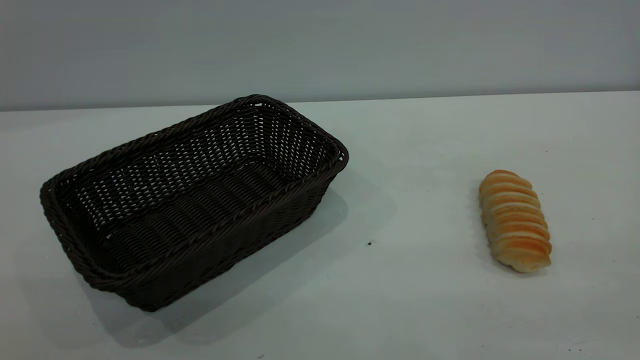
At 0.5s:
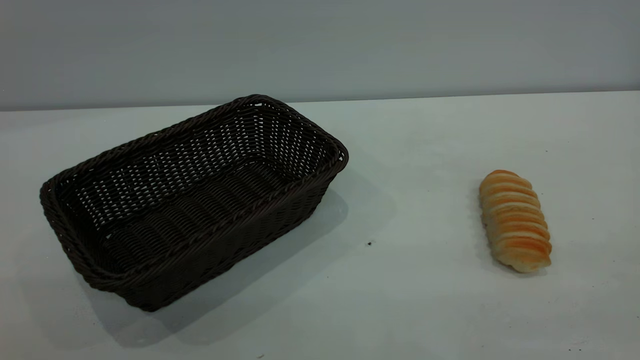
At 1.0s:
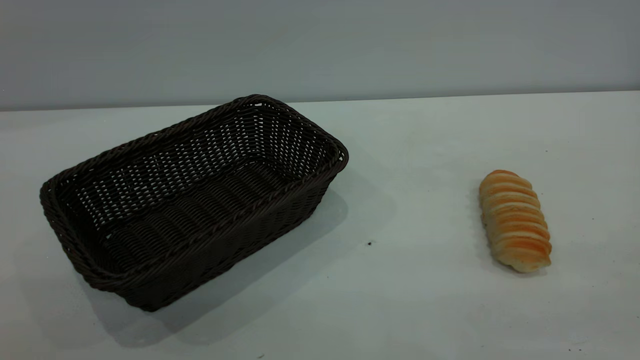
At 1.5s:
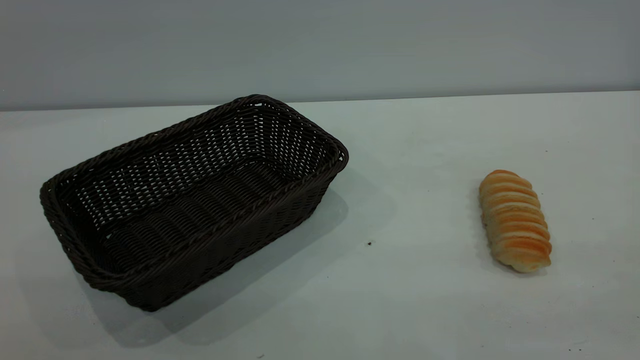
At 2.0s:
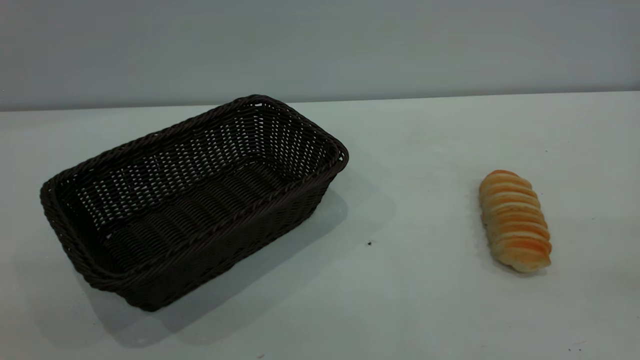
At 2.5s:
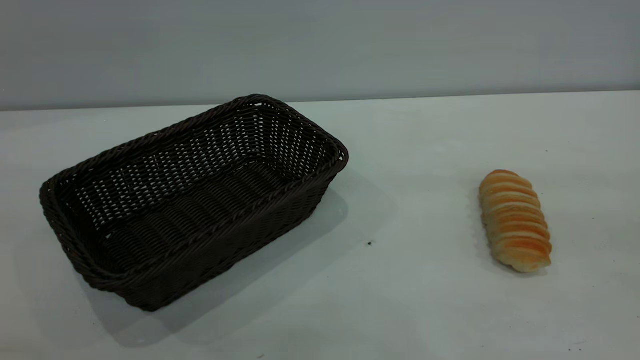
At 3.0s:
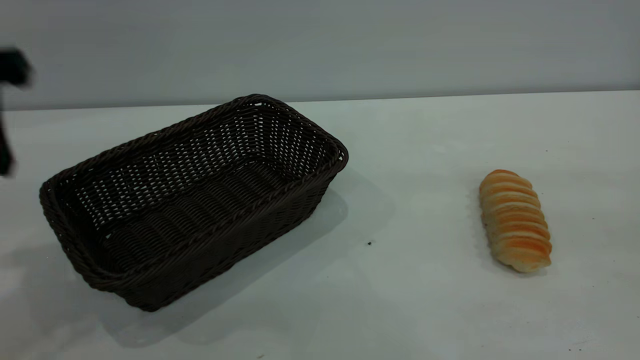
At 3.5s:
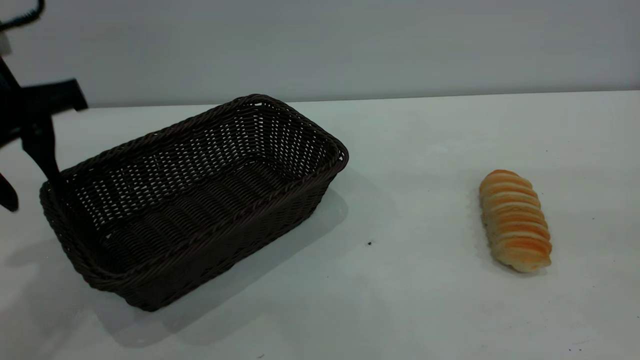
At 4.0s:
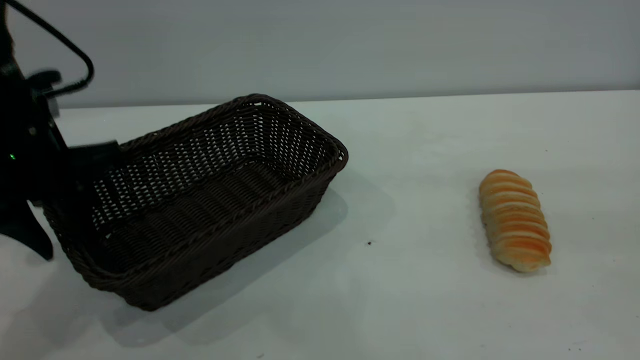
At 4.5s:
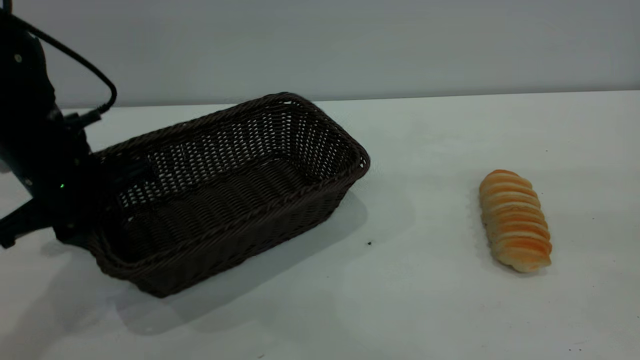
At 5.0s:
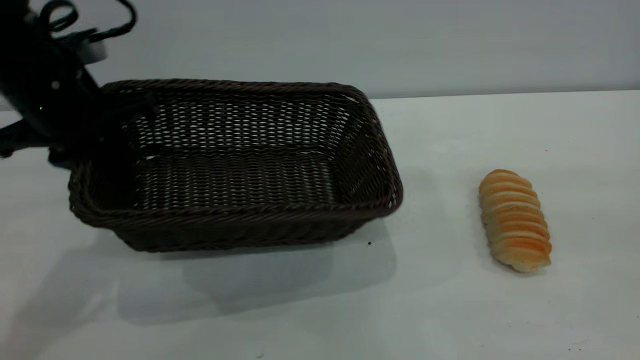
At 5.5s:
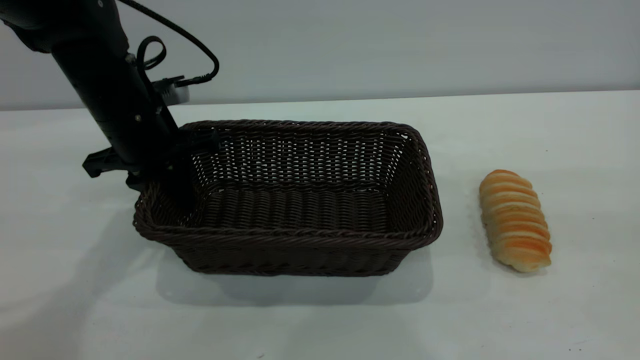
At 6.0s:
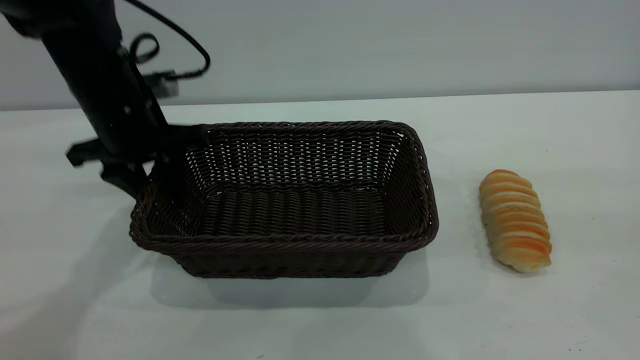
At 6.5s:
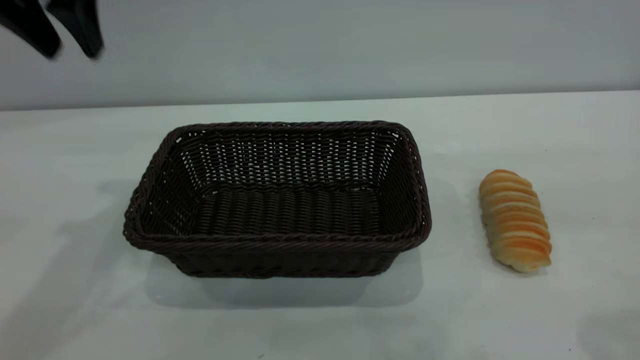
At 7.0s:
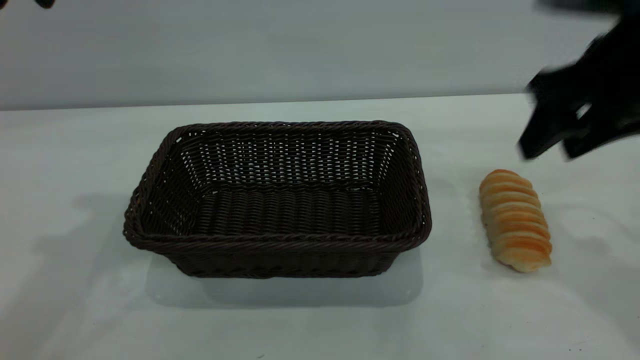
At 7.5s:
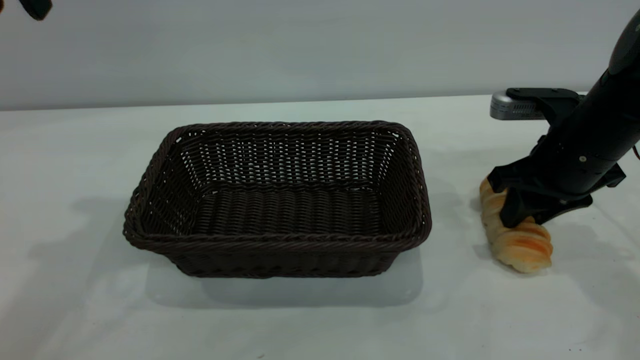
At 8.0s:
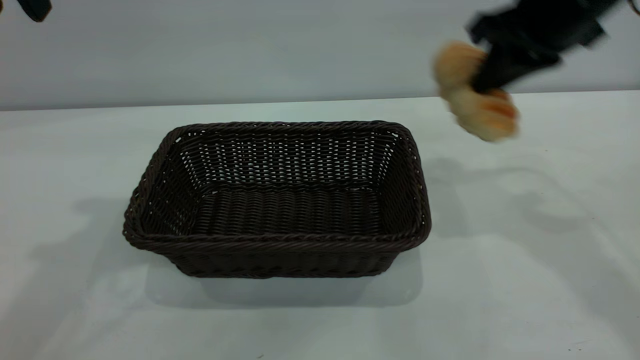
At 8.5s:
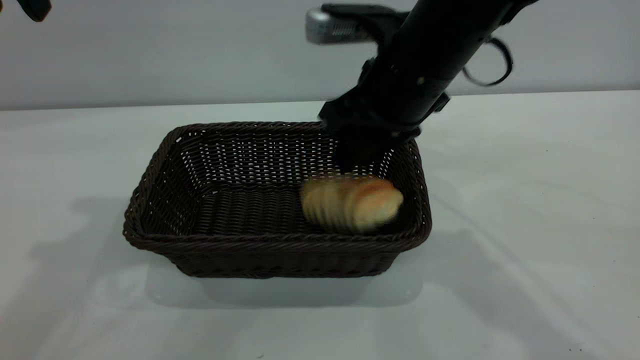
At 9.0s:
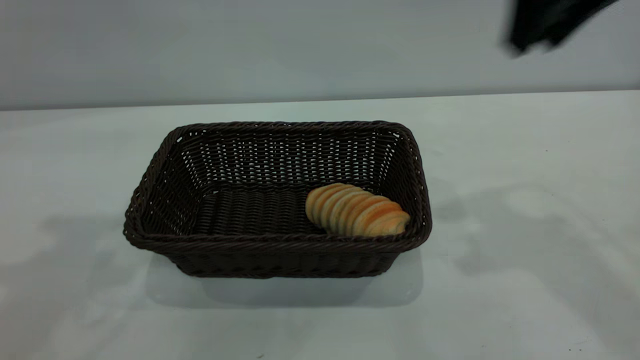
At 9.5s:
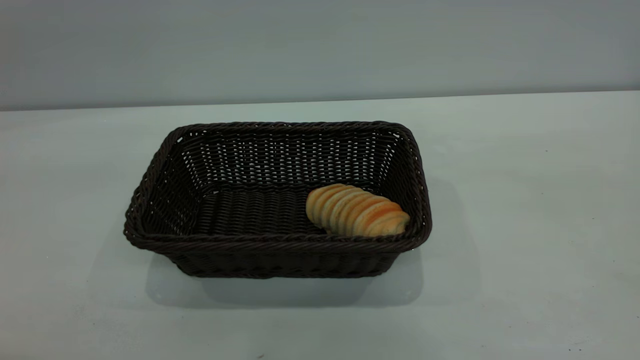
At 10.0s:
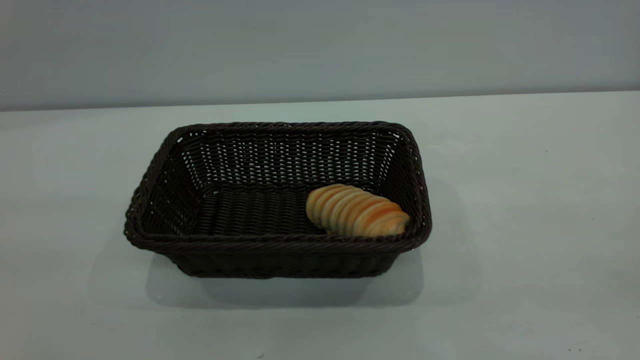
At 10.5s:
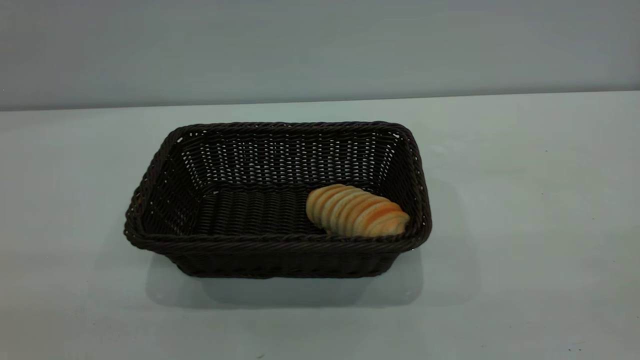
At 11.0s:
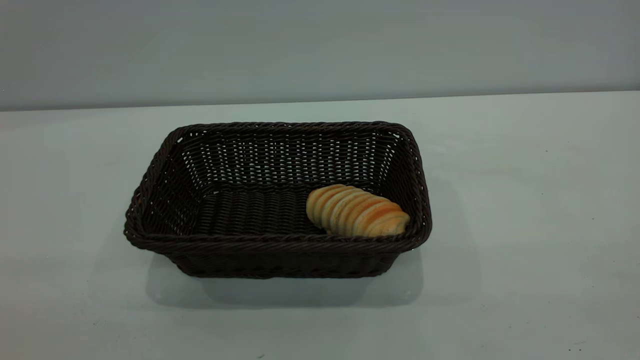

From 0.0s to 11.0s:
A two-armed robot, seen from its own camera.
Task of the whole recording: One hand grasps the black basket and places it in the middle of the table, while the other hand picks up the long bread and puts it into the black basket.
Step, from 0.0s to 6.0s: Move the basket to the center of view.
Step, from 8.0s to 8.5s: place the bread into the basket.
From 2.0s to 3.5s: The left gripper heads forward and downward, covering roughly 35 cm.
From 3.5s to 5.5s: The left gripper travels forward, downward and to the right by about 15 cm, and closes up.
From 5.5s to 7.5s: The left gripper heads upward, covering roughly 25 cm, and opens; the right gripper goes some 35 cm forward and downward, and closes up.
From 7.5s to 9.0s: The right gripper swings up and down, some 25 cm each way, with 2 reversals, and closes, then reopens. Meanwhile the left gripper goes about 5 cm upward.
From 9.0s to 11.0s: The right gripper goes about 30 cm backward.

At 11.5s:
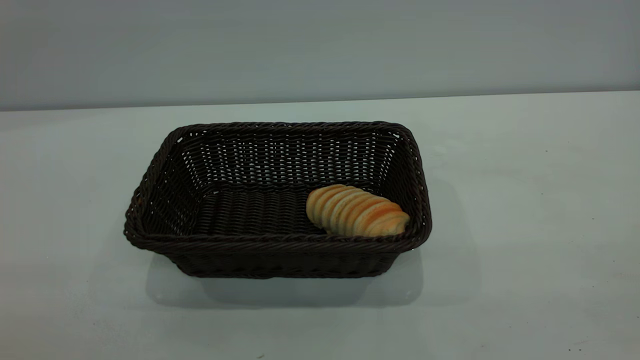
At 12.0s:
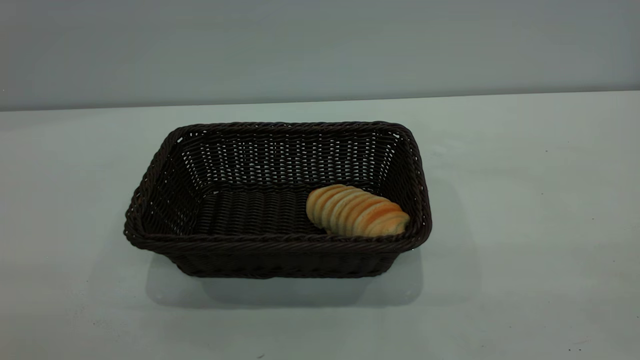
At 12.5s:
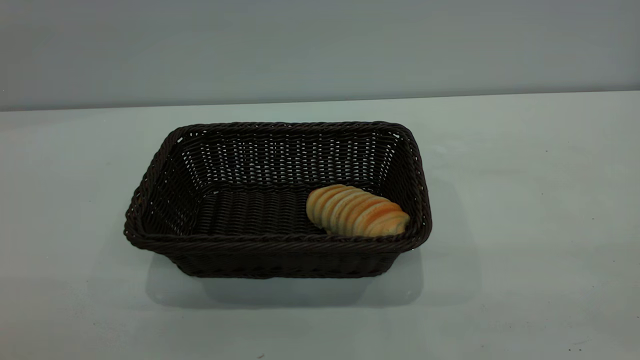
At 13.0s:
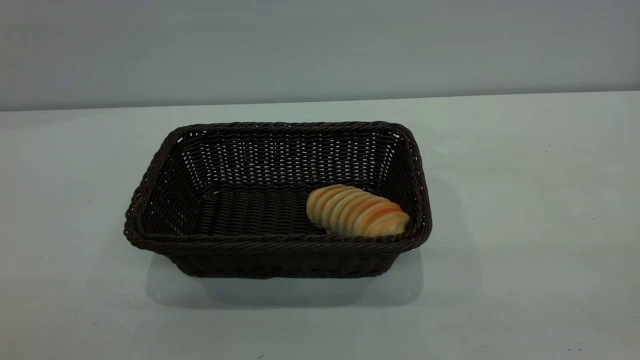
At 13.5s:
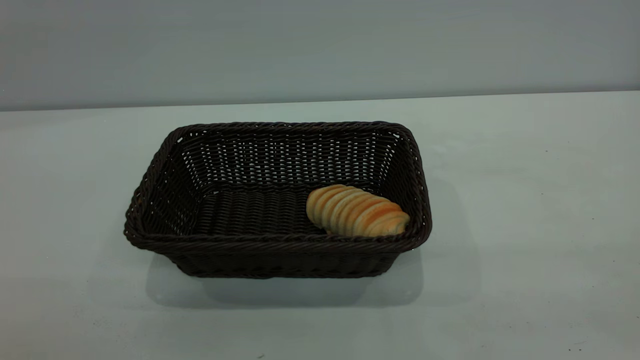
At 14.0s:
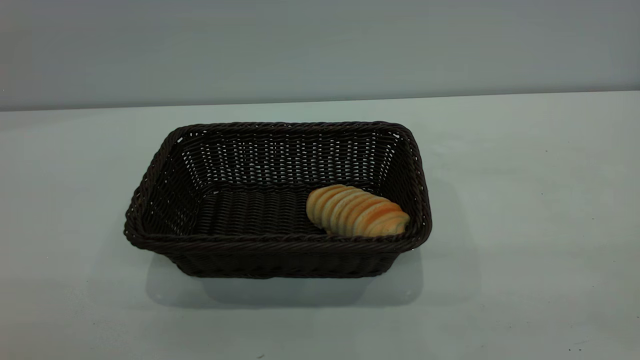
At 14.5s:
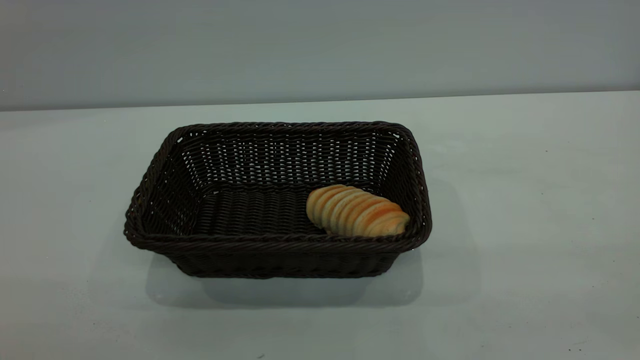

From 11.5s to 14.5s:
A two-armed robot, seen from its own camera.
Task of the whole recording: One hand grasps the black basket and places it in the middle of the table, while the other hand picks up the long bread and puts it into the black basket.
From 13.0s to 14.5s: Both grippers stay about where they are.

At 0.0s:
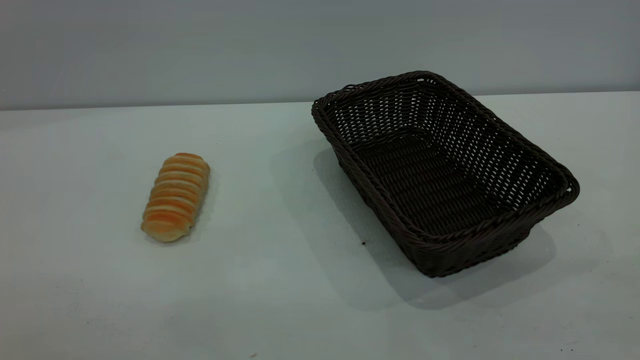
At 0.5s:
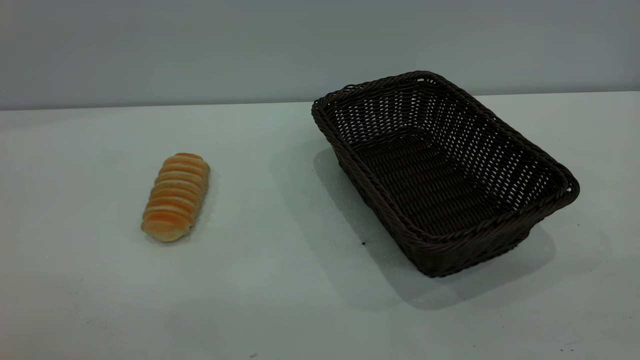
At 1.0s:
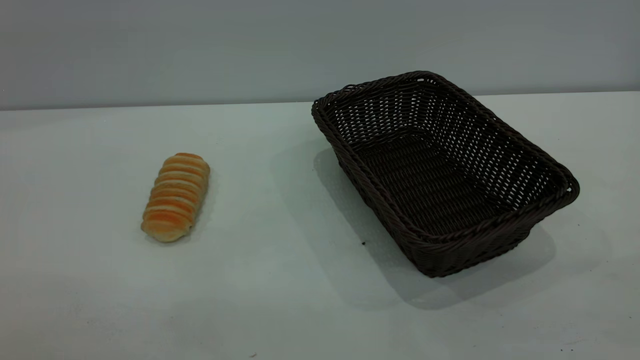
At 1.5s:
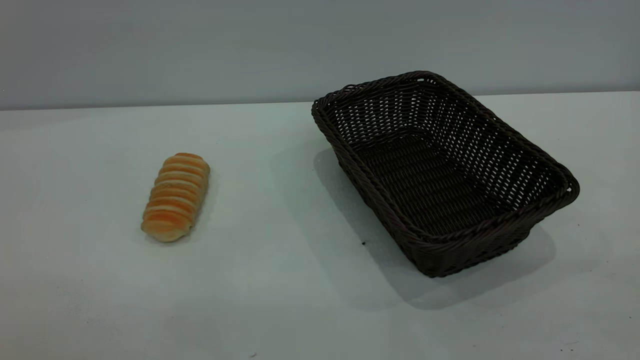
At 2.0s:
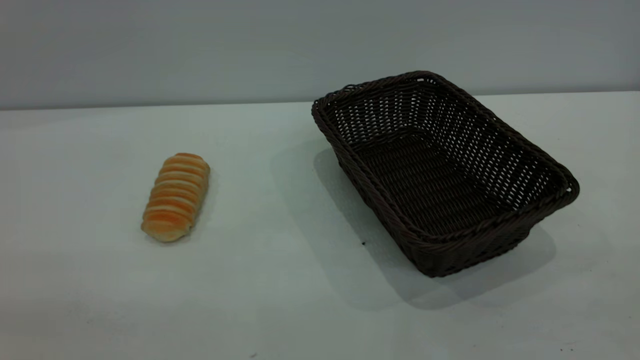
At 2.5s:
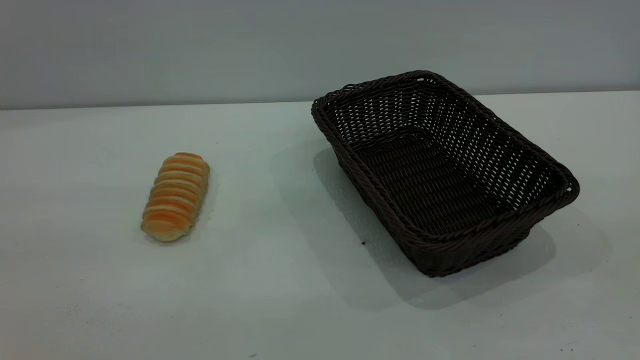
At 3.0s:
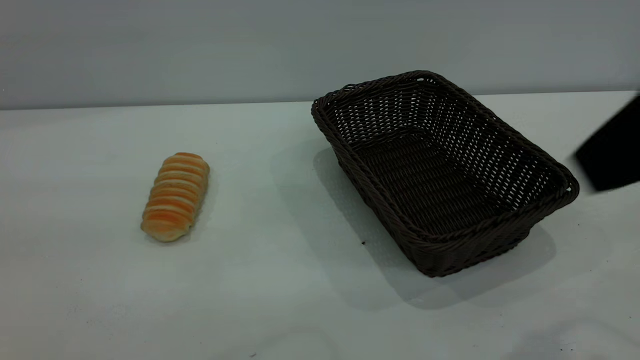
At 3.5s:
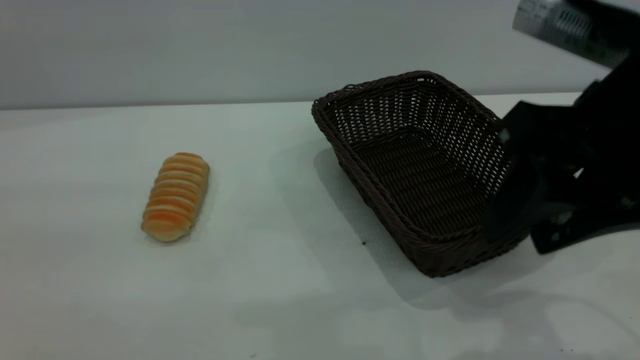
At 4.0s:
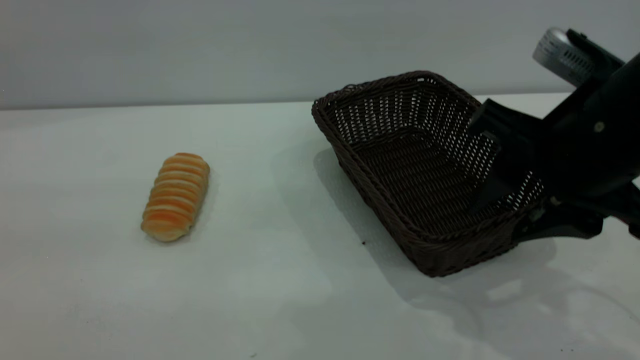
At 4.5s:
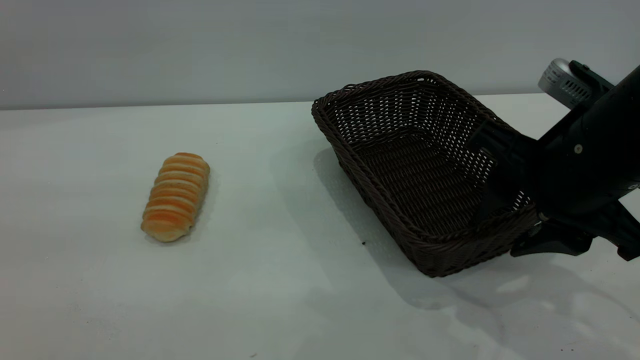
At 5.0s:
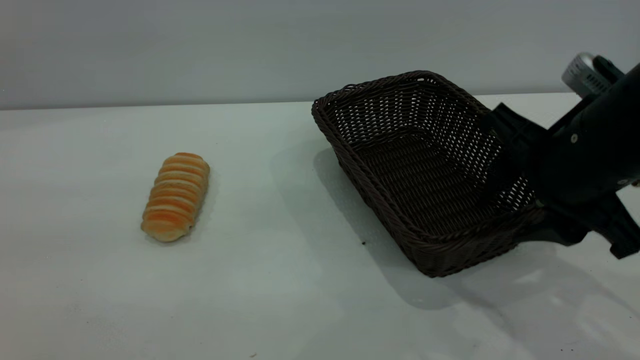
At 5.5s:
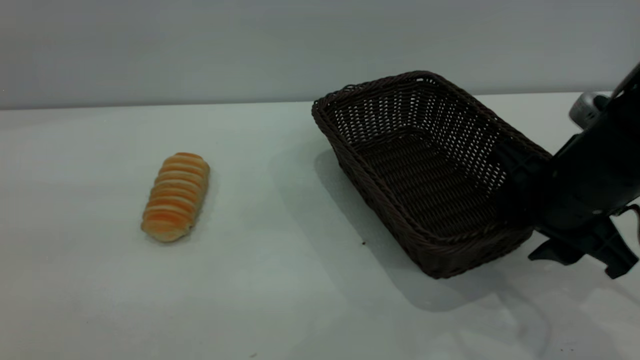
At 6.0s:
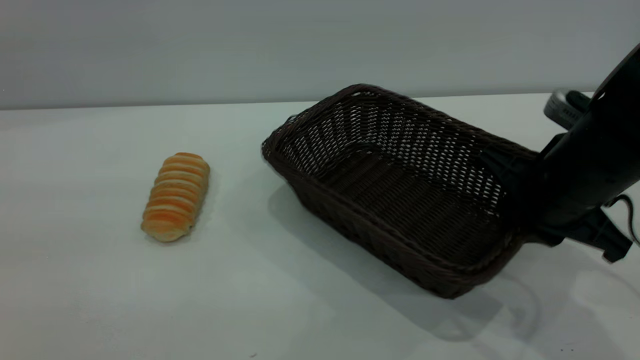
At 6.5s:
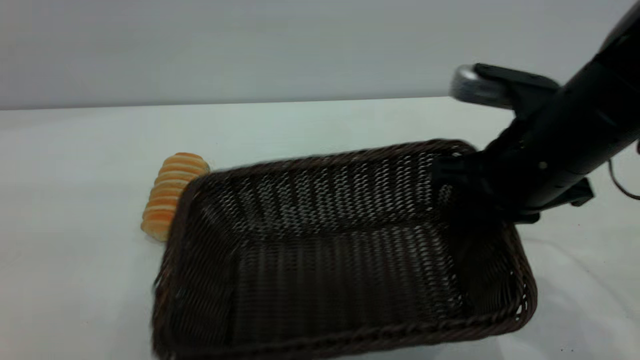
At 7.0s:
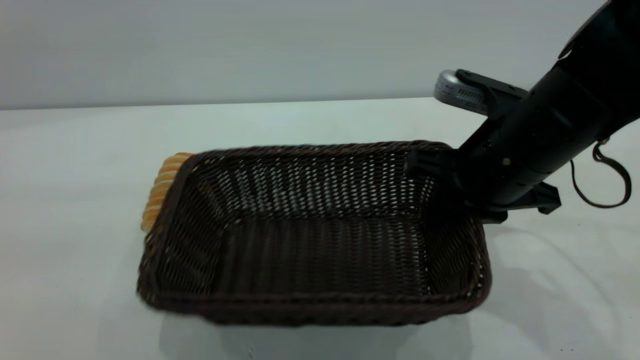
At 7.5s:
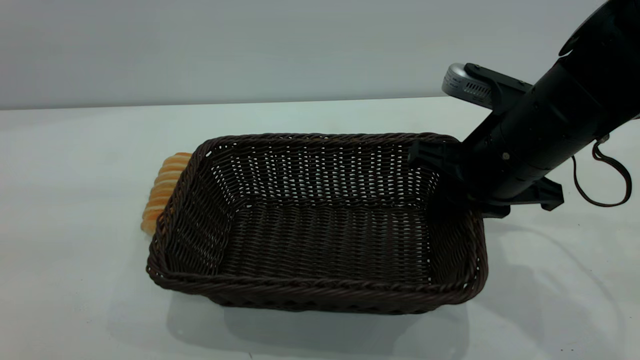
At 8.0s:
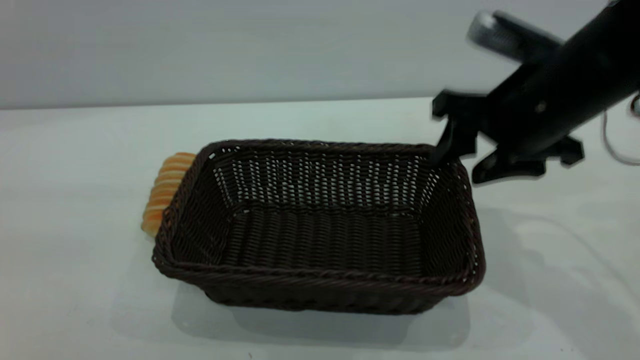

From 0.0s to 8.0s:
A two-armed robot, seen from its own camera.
Task of the whole recording: One hand grasps the black basket and places it in the middle of the table, while the other hand picks up the long bread and puts it into the black basket.
From 2.0s to 4.0s: The right gripper travels forward, downward and to the left by about 30 cm.
From 4.0s to 6.0s: The right gripper is displaced downward by roughly 5 cm, and closes.
From 6.0s to 8.0s: The right gripper shifts roughly 5 cm upward, and opens up.
